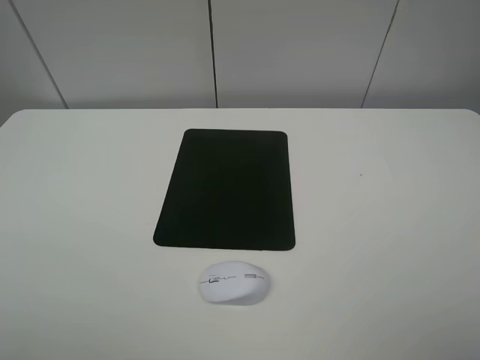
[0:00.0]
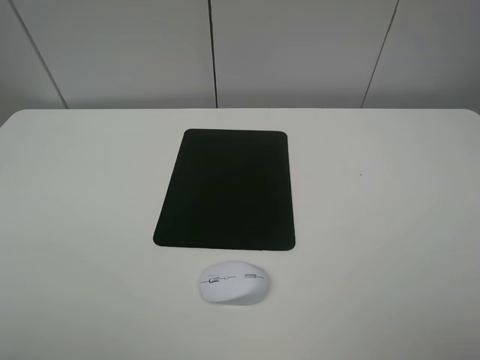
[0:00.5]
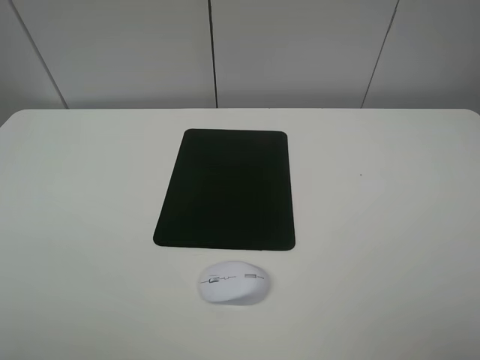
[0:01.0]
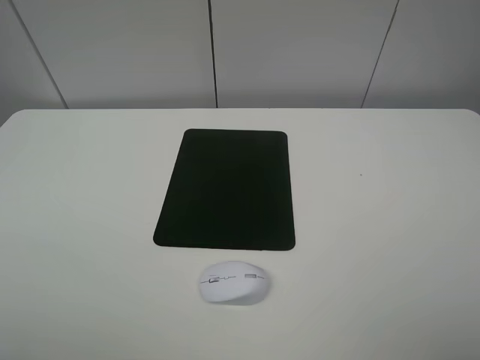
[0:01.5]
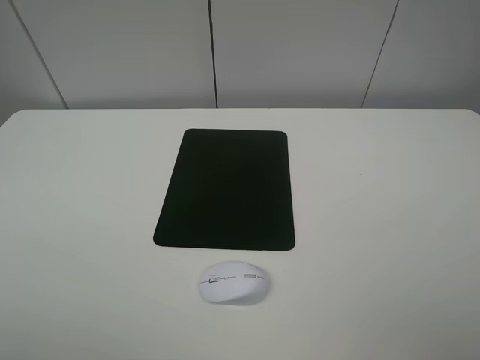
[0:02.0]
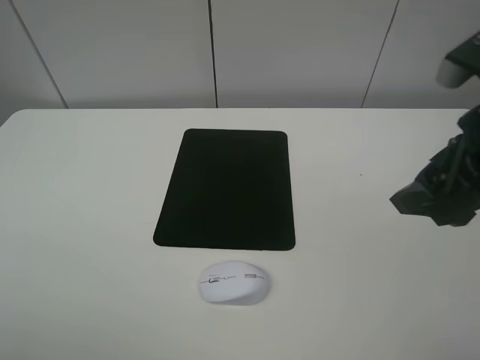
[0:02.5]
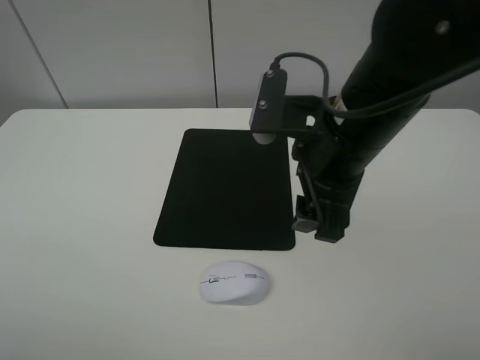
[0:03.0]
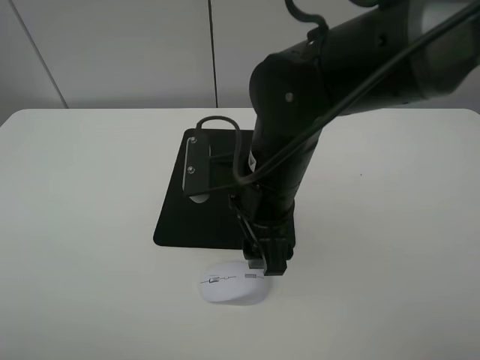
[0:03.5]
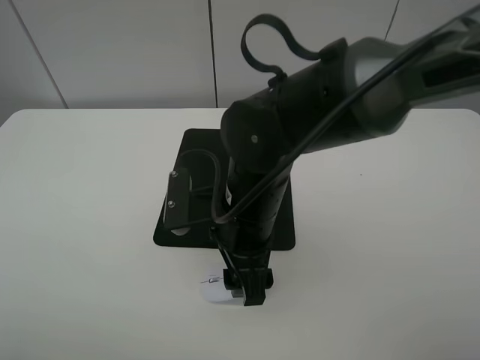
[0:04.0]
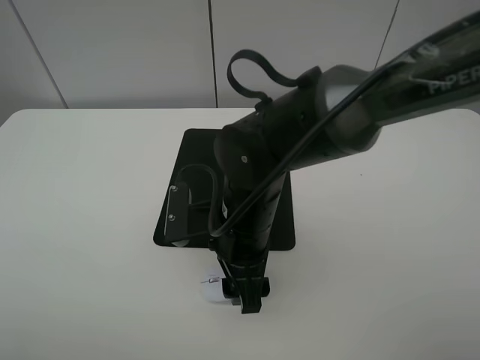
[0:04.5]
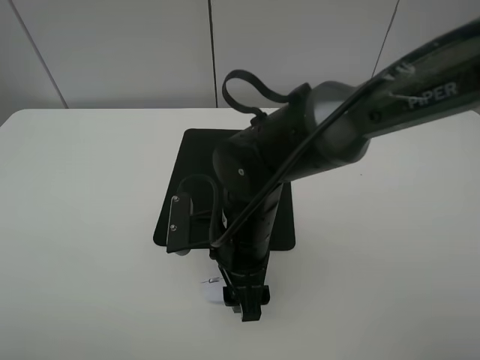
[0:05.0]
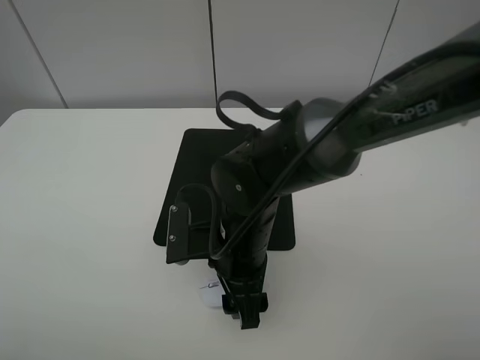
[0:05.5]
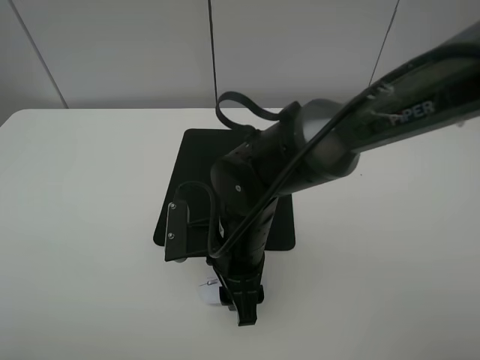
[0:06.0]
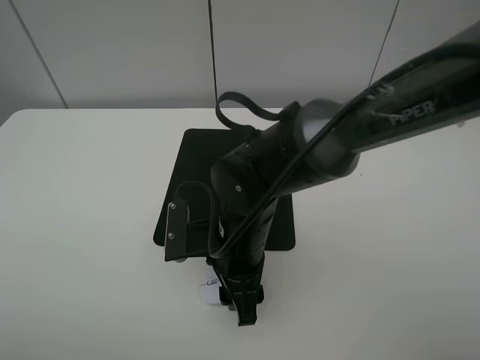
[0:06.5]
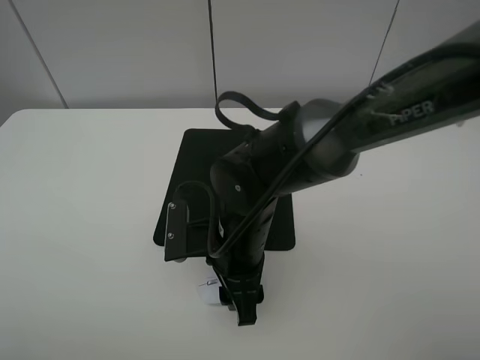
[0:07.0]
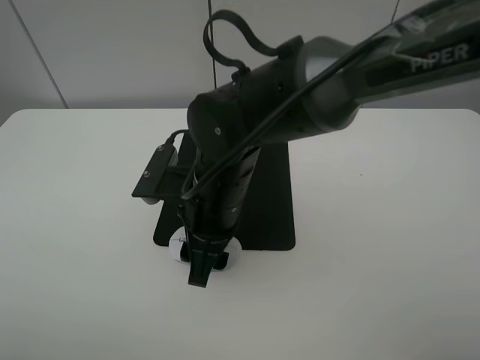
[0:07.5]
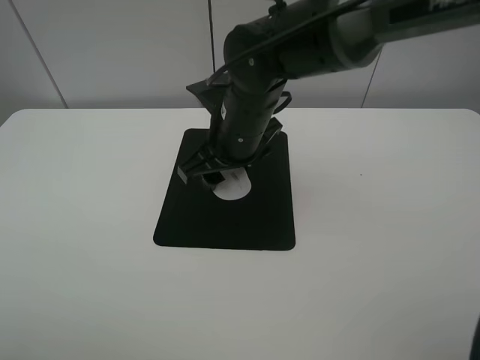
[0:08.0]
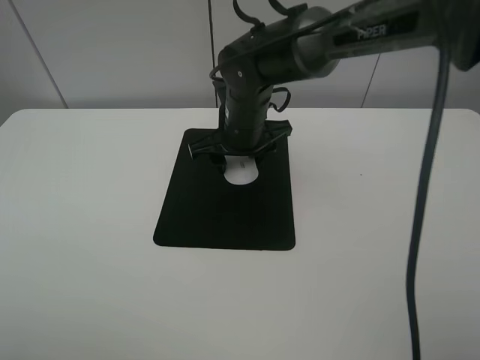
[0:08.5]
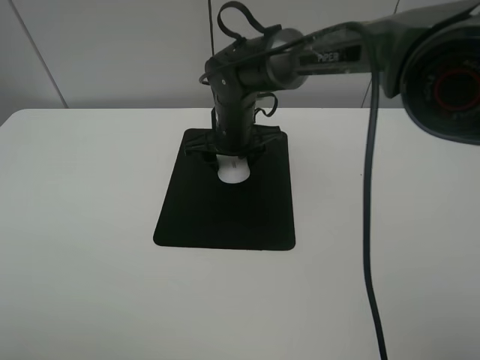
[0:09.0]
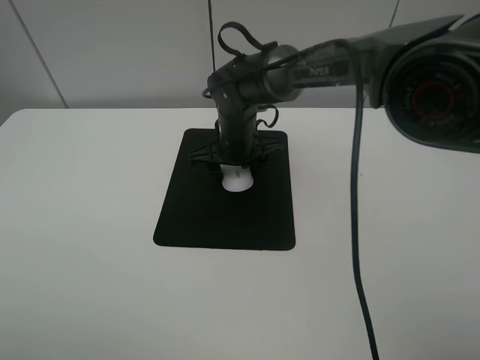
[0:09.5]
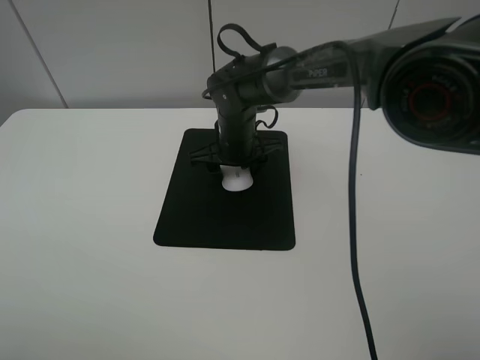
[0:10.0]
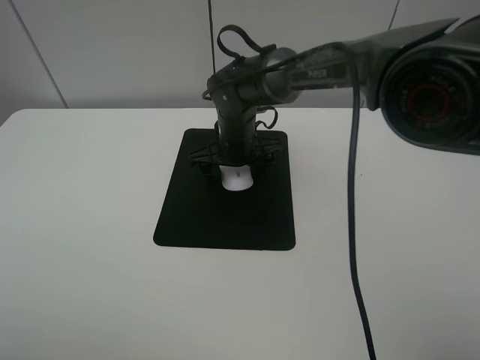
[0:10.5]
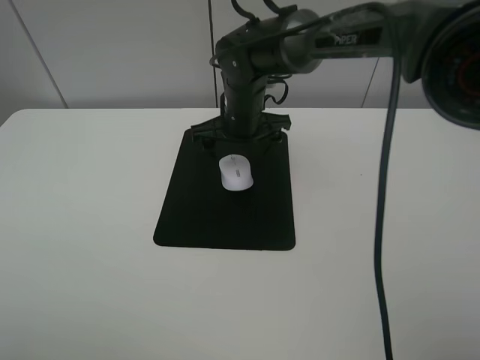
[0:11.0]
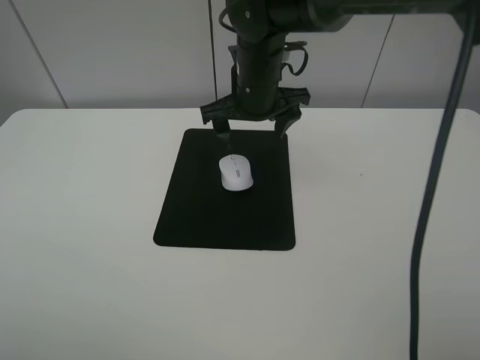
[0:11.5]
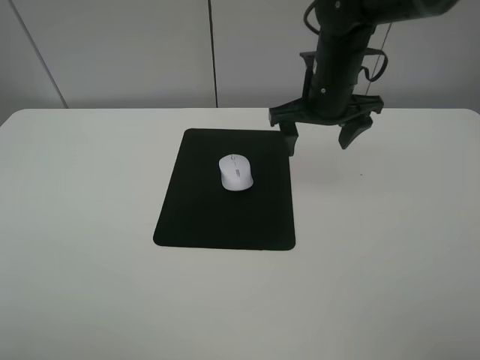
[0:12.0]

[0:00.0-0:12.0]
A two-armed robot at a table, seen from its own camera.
Step, 0:00.0 to 0:06.5: Grasp the mouse with the right gripper.
Step, 0:07.0 to 0:10.5: Place the mouse on the mouse mat with the right gripper.
0:02.0 to 0:04.0: The right gripper moves to the left, forward and downward, roughly 35 cm.
0:04.0 to 0:06.0: The right gripper travels downward by approximately 5 cm, and closes its fingers.
0:06.0 to 0:08.0: The right gripper travels forward and upward by roughly 15 cm.
0:08.0 to 0:10.0: The right gripper travels downward and forward by some 10 cm.
0:10.0 to 0:12.0: The right gripper is displaced to the right and upward by some 15 cm, and opens up.

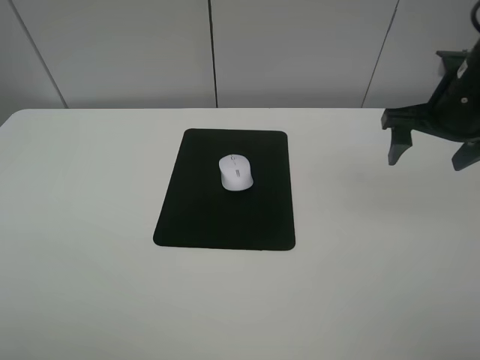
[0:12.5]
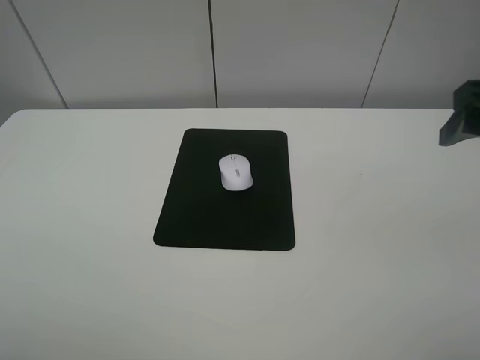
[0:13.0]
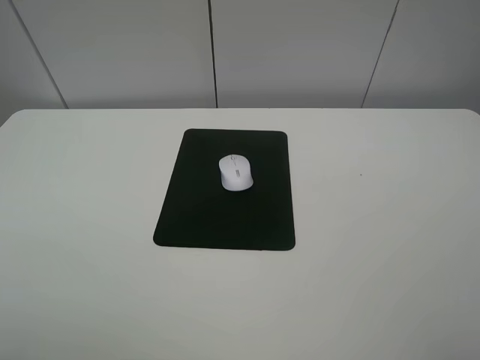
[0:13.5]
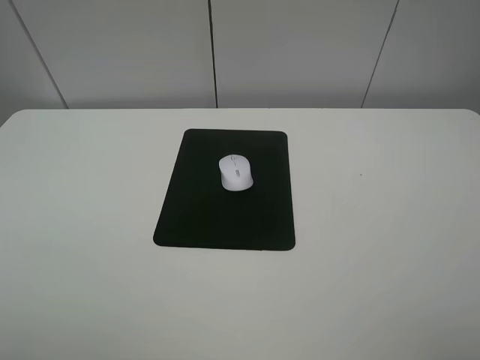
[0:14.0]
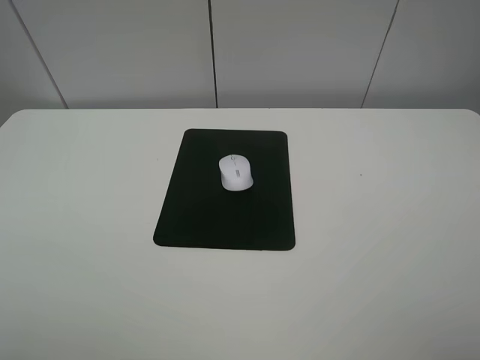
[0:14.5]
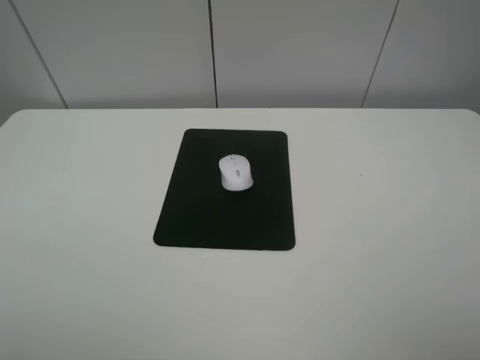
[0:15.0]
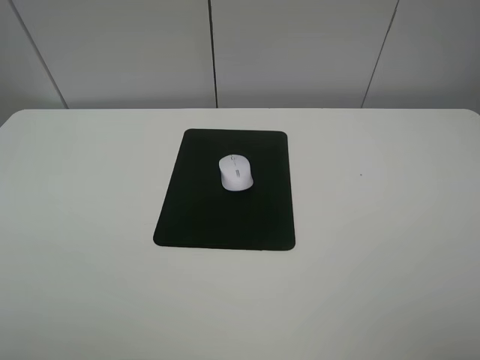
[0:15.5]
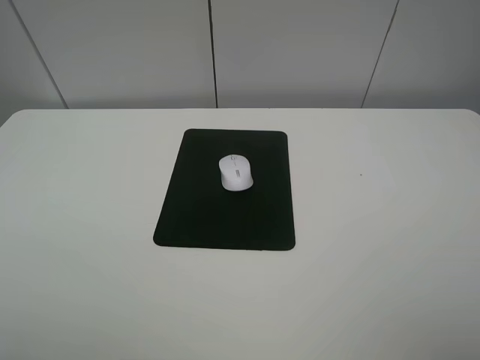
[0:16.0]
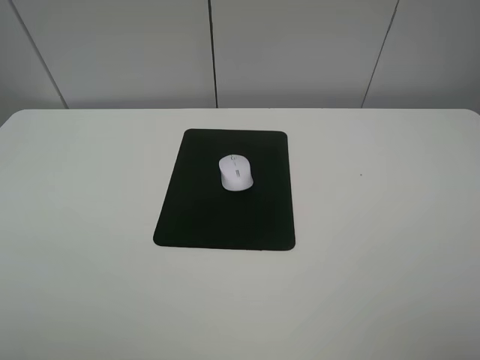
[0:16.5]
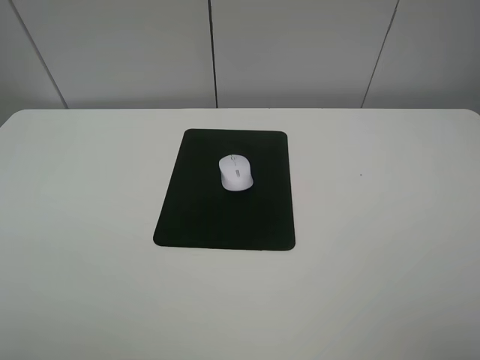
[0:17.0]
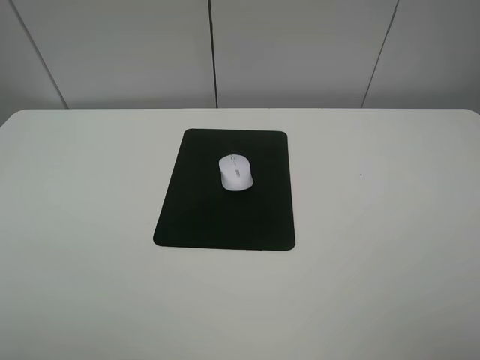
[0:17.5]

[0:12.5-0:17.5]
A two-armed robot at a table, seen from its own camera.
0:12.5 to 0:15.0: The right gripper heads backward, covering roughly 30 cm.

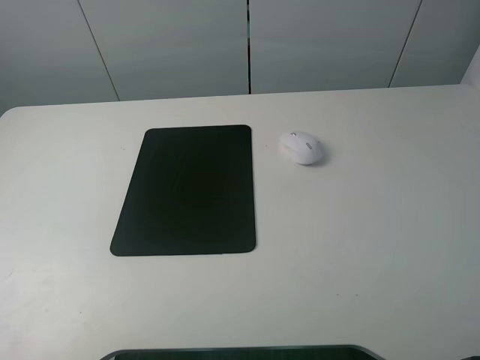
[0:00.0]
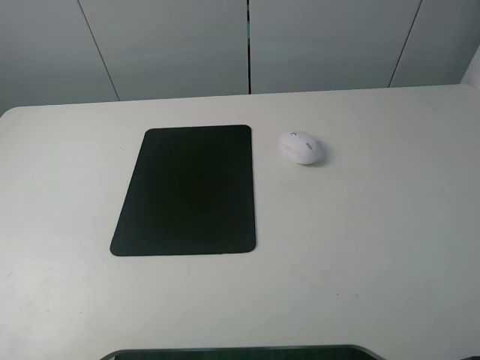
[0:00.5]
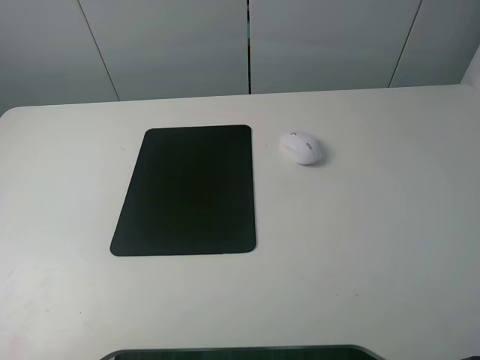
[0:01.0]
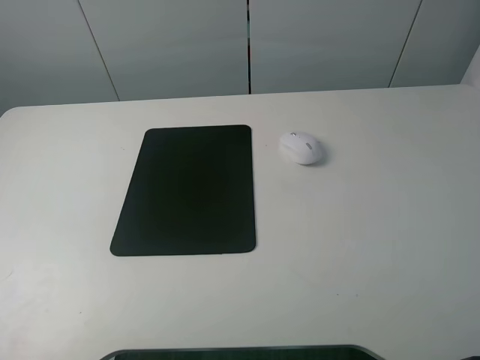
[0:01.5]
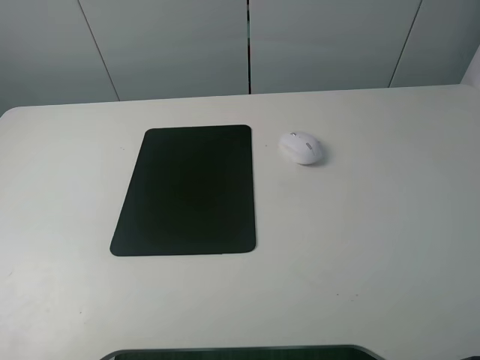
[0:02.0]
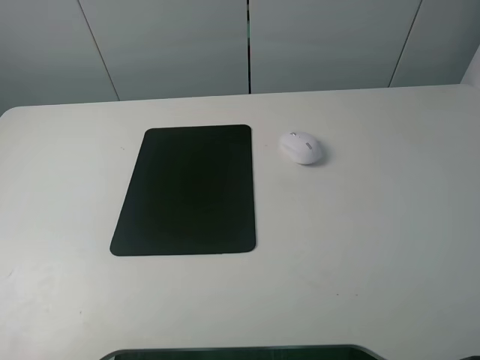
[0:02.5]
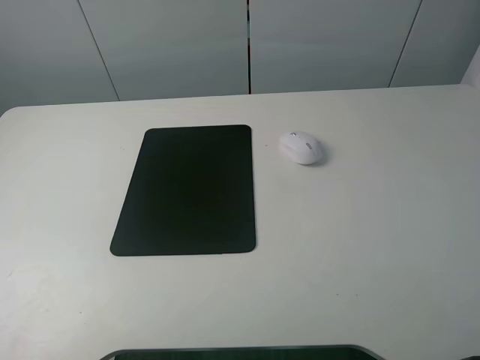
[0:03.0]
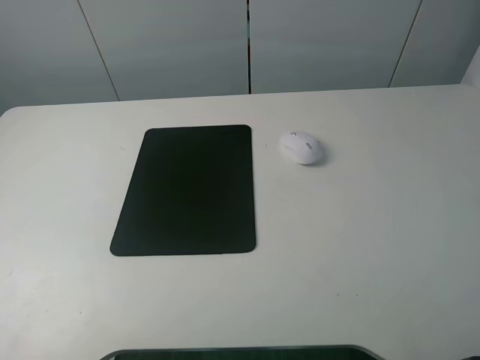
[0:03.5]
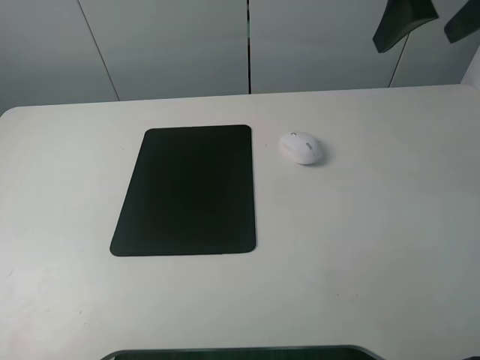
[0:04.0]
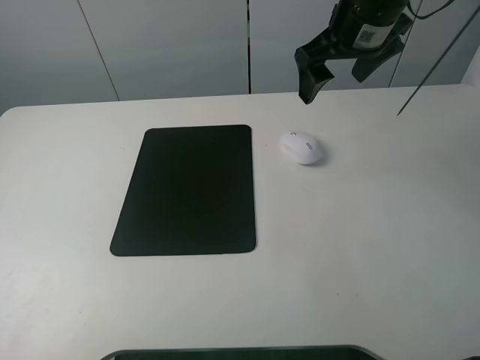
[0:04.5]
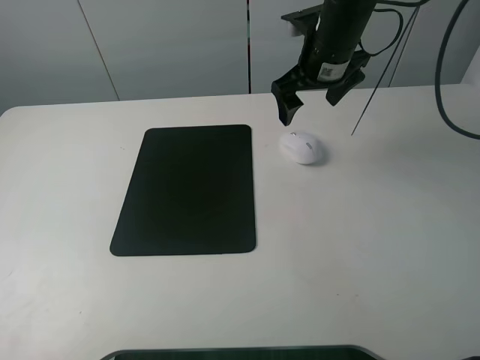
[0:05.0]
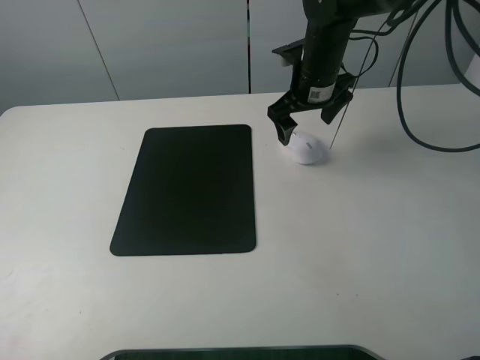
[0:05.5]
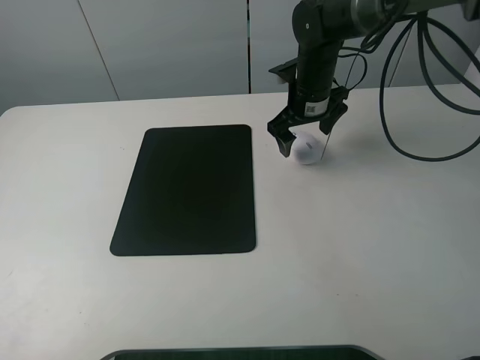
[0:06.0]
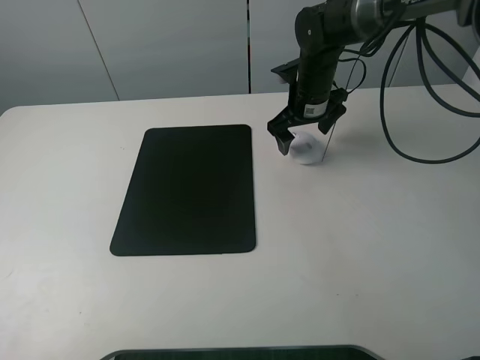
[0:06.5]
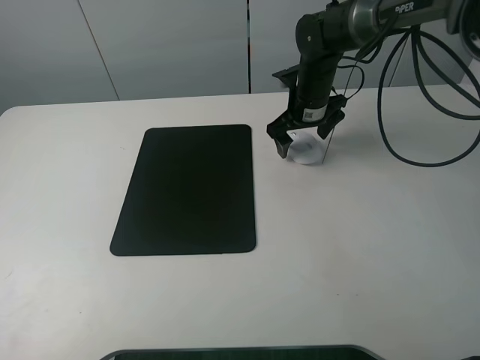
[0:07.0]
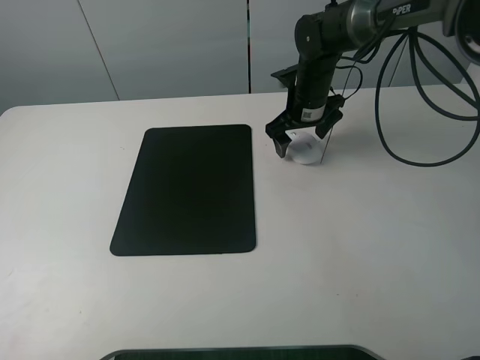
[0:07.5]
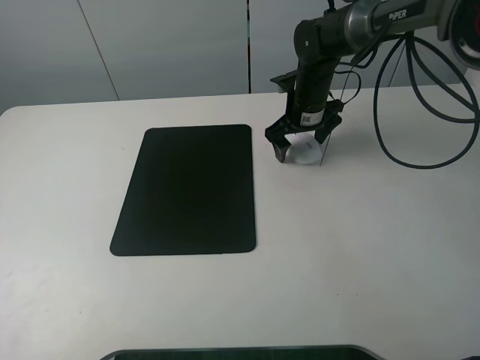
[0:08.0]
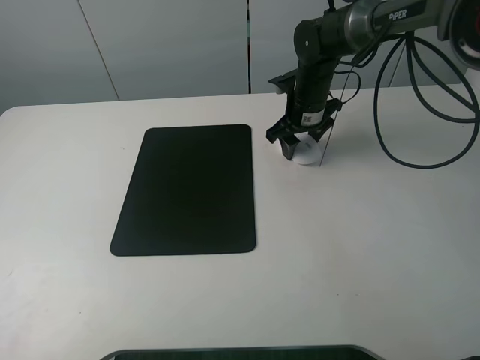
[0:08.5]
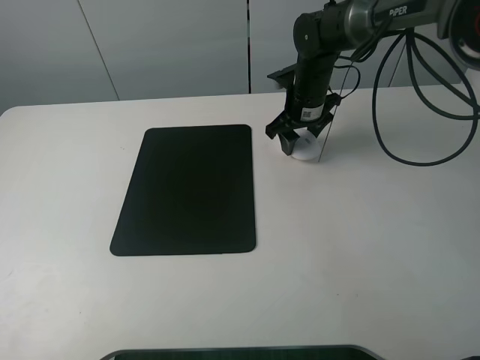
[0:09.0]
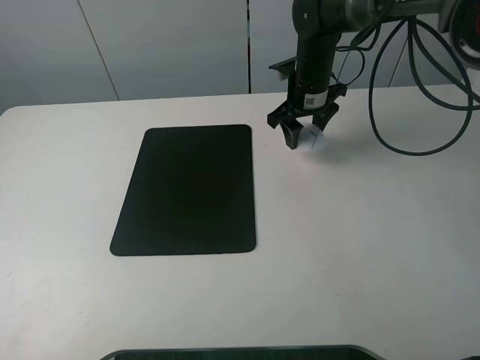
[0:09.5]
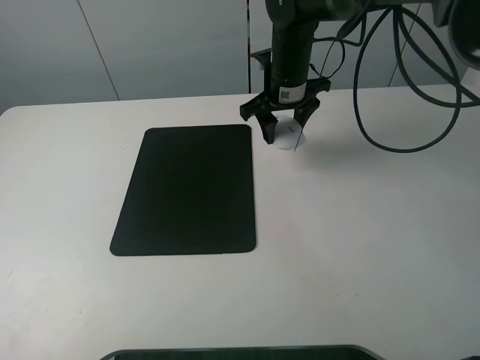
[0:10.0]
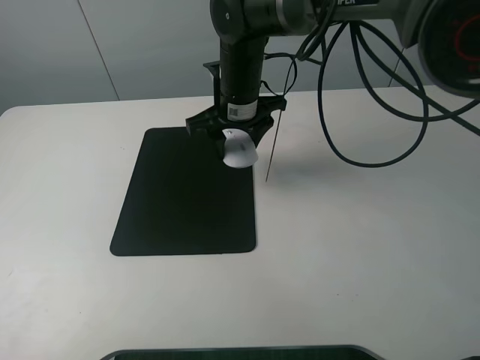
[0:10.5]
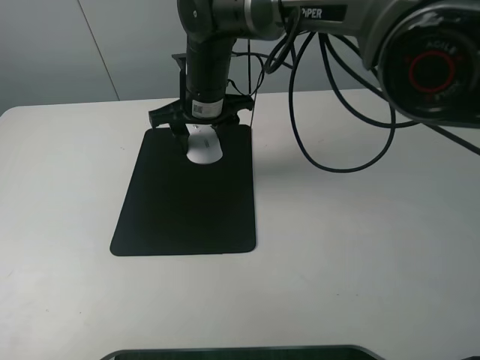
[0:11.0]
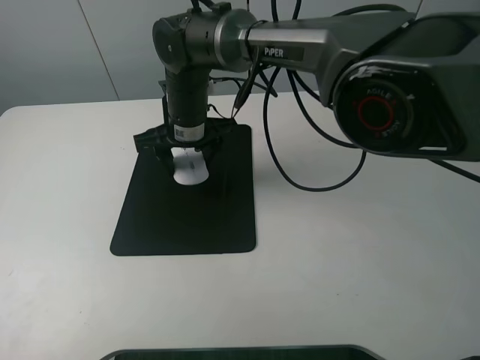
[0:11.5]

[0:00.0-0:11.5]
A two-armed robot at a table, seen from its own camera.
Step, 0:00.0 to 0:09.0: Grasp the mouse with the right gripper.
0:00.0 to 0:02.0: The two grippers keep their place.
0:02.0 to 0:04.0: The right gripper moves forward, roughly 30 cm.
0:04.0 to 0:06.0: The right gripper shifts approximately 25 cm downward, forward and to the left.
0:06.0 to 0:07.5: The grippers stay close to where they were, moving slightly.
0:07.5 to 0:09.5: The right gripper closes its fingers.
0:09.5 to 0:11.5: The right gripper heads to the left and backward, covering approximately 20 cm.
